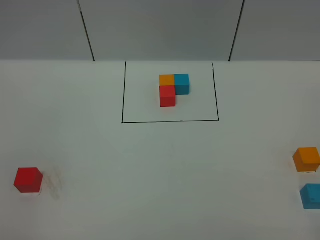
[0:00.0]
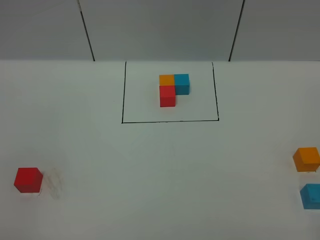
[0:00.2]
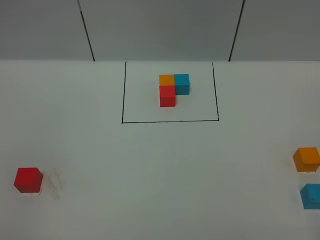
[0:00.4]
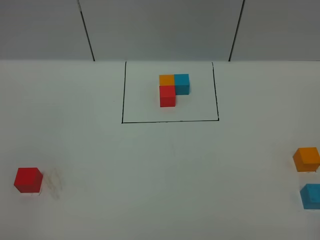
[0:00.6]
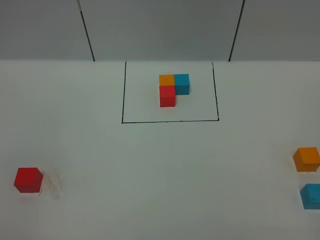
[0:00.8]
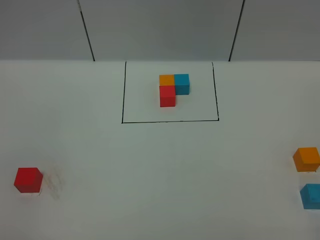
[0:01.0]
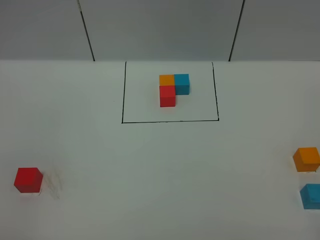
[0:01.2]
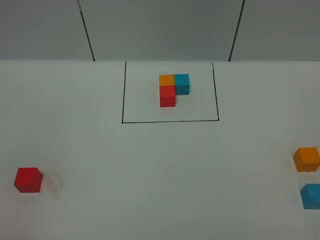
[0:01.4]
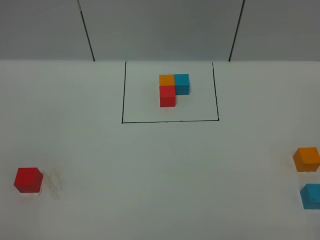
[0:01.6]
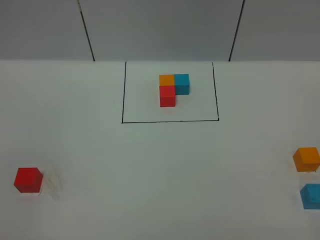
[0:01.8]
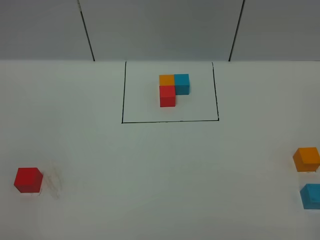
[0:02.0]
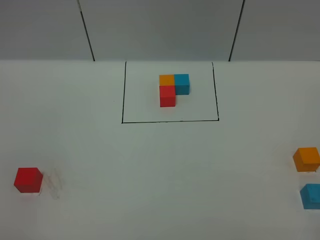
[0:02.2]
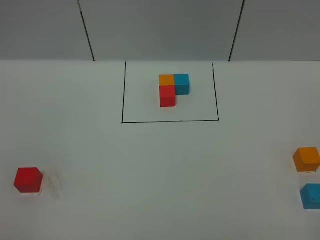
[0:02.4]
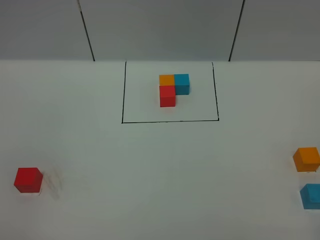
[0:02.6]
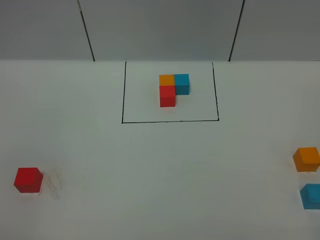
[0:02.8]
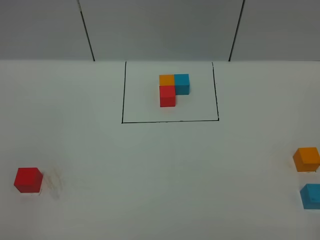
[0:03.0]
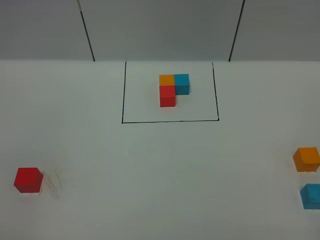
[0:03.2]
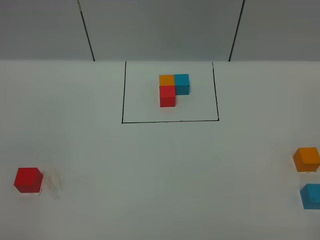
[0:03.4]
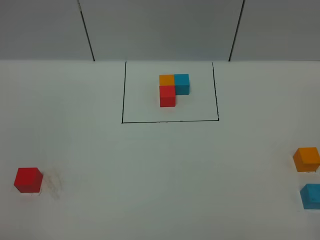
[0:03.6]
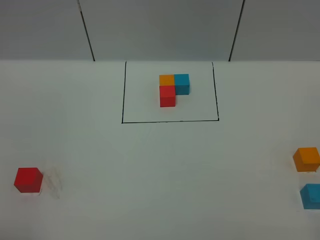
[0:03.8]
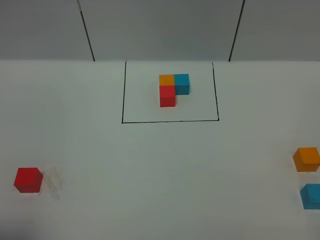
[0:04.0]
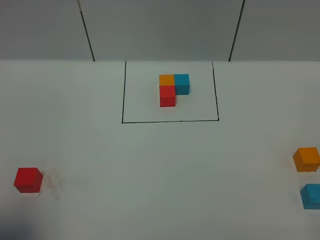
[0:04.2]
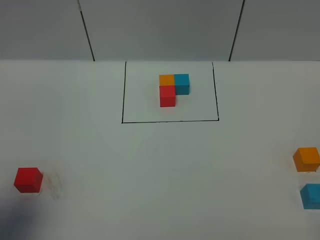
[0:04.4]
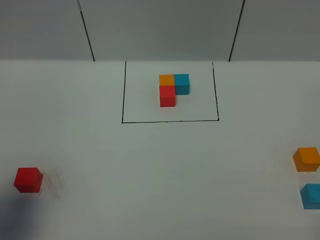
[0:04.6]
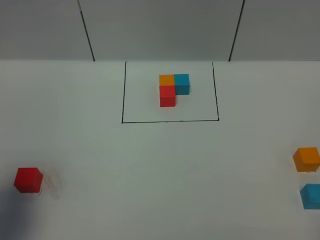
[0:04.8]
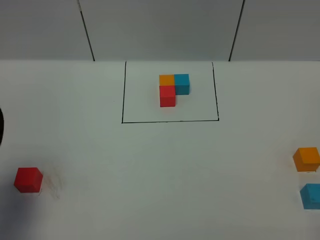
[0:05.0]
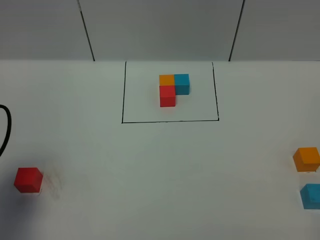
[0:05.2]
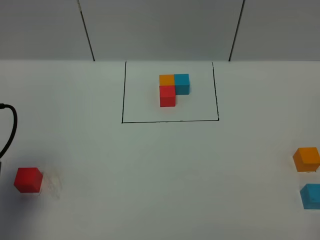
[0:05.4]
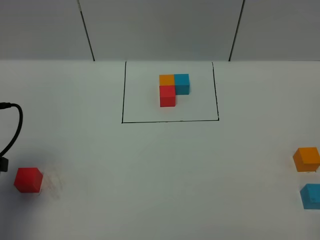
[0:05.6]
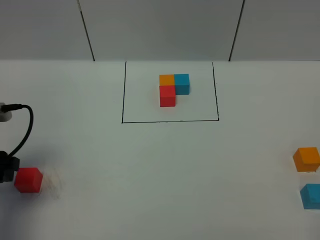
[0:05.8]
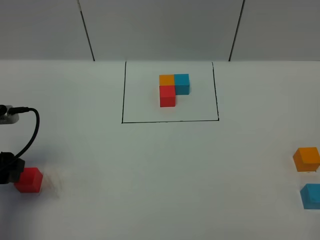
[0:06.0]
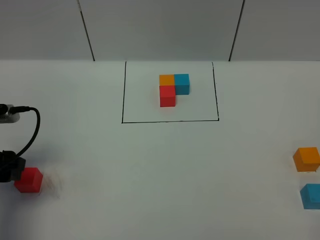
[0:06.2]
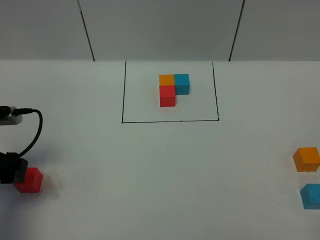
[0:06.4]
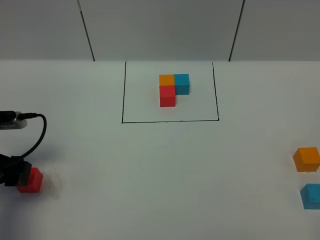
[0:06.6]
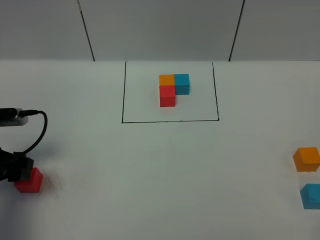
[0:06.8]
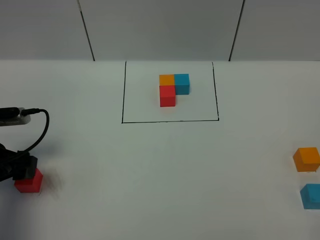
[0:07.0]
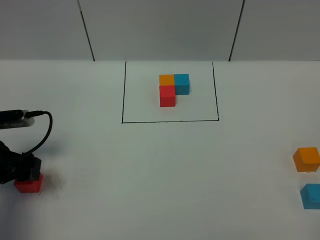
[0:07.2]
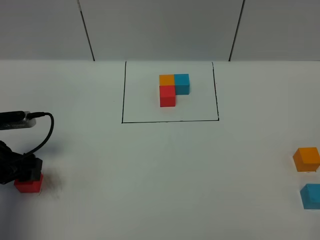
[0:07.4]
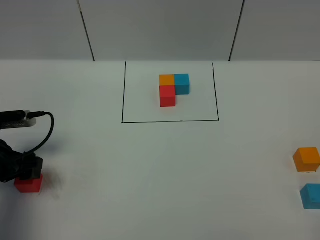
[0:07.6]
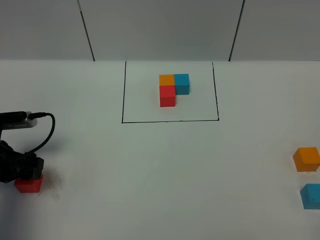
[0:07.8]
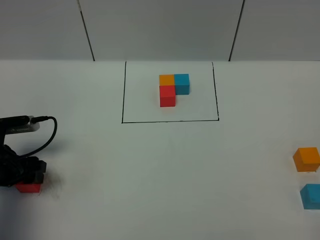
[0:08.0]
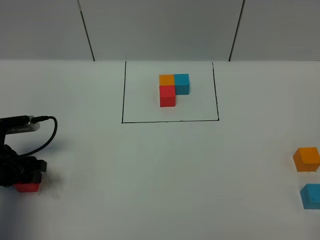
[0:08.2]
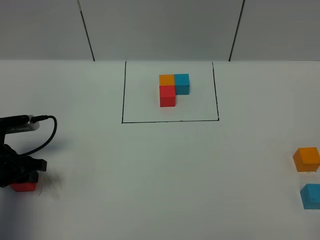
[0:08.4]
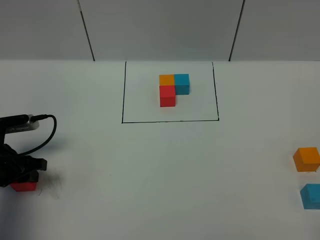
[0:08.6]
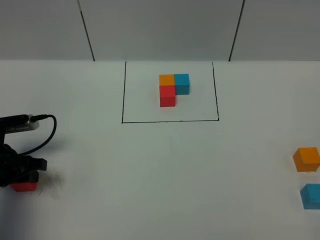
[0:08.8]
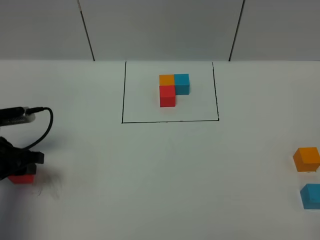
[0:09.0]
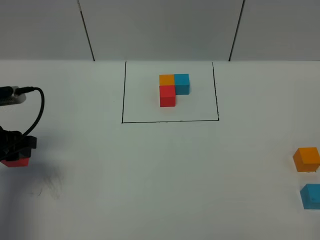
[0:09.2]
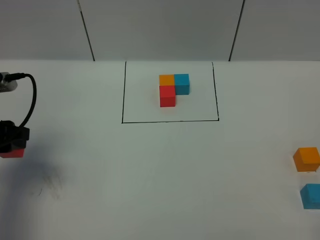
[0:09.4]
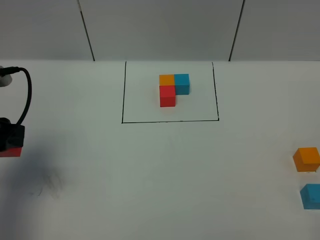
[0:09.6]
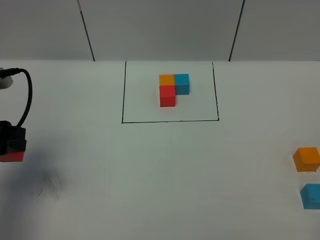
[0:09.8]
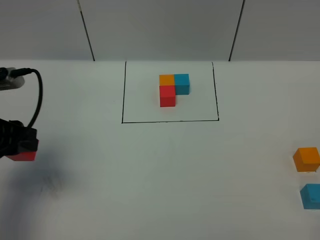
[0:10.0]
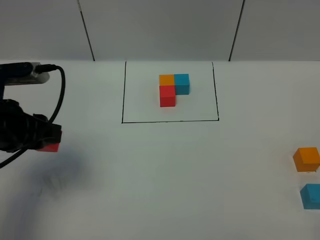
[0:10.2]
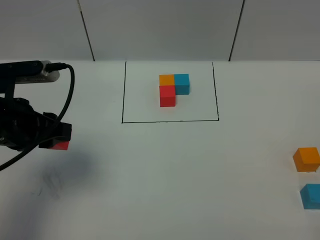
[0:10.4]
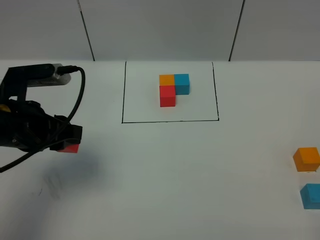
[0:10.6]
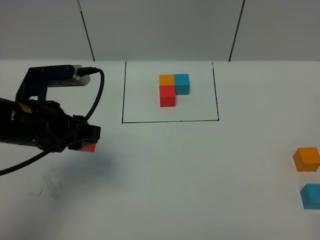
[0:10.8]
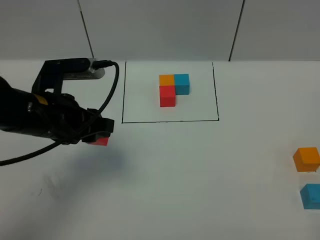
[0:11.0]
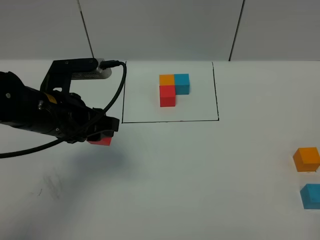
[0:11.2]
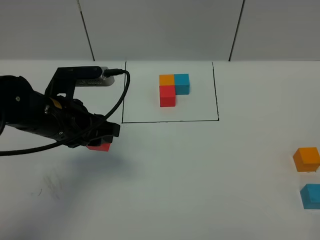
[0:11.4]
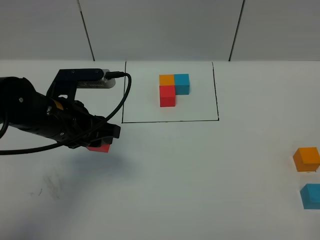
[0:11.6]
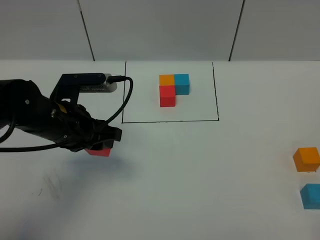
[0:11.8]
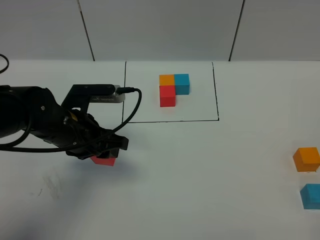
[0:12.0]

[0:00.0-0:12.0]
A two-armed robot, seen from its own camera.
Task of the whole recording: According to the building block template in front, assemble the scattered blocks together.
0:00.0 to 0:01.6: The two grippers keep their place.
0:03.0 to 0:04.4: The left gripper shifts some 15 cm forward.
0:04.4 to 0:06.0: The left gripper goes about 15 cm forward and downward.
0:06.0 to 0:07.6: The left gripper heads downward, covering approximately 5 cm.
0:07.6 to 0:09.0: The left gripper closes up.
0:09.0 to 0:10.4: The left gripper heads upward and to the right, covering approximately 15 cm.
0:10.4 to 0:12.0: The left gripper goes about 10 cm to the right and downward.

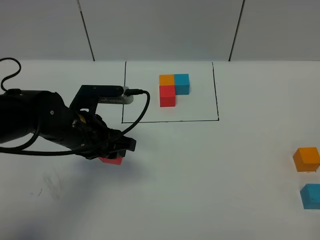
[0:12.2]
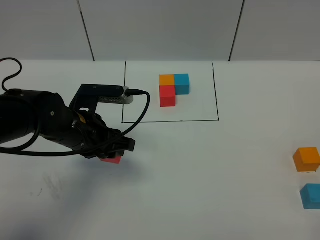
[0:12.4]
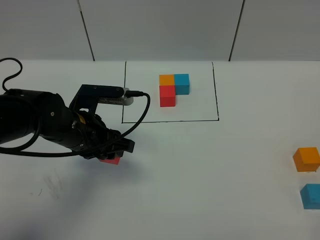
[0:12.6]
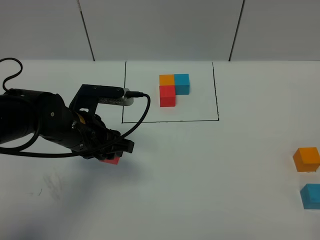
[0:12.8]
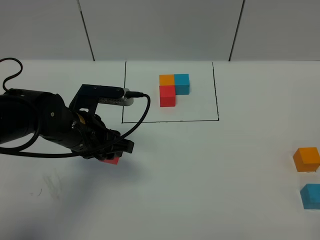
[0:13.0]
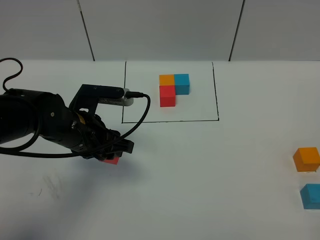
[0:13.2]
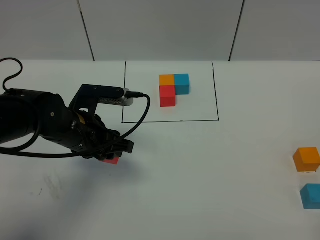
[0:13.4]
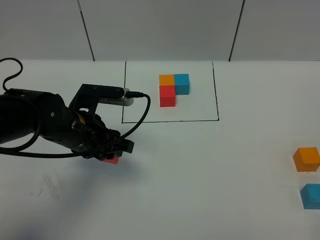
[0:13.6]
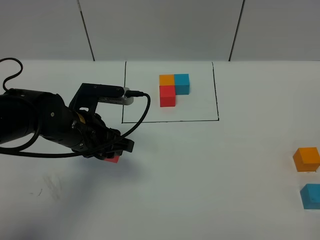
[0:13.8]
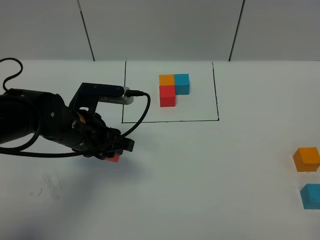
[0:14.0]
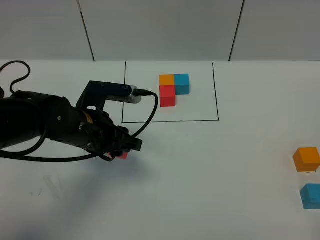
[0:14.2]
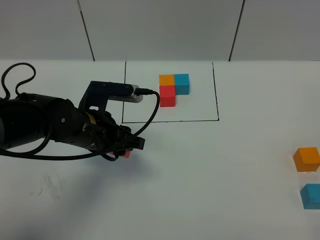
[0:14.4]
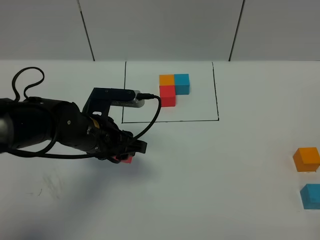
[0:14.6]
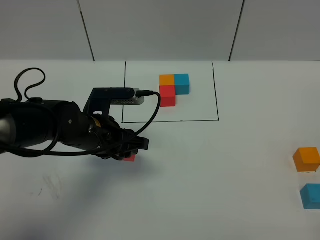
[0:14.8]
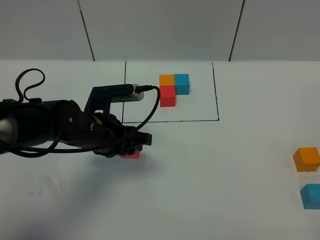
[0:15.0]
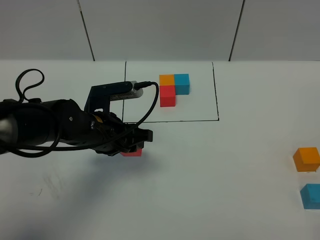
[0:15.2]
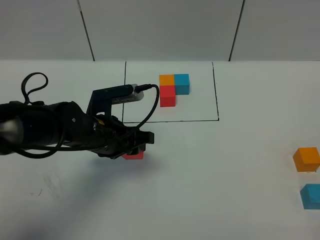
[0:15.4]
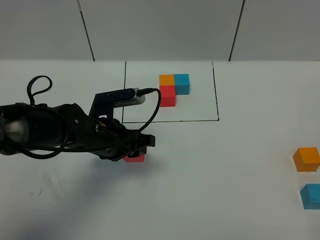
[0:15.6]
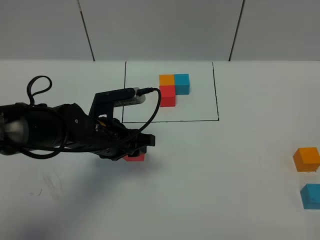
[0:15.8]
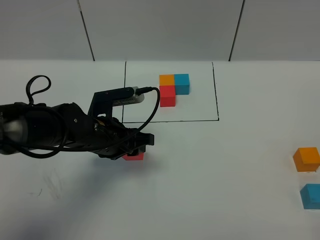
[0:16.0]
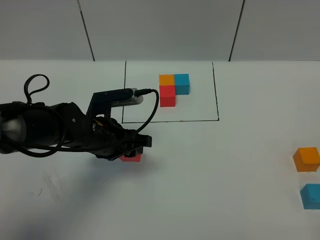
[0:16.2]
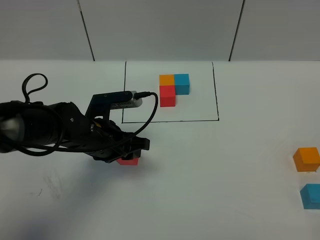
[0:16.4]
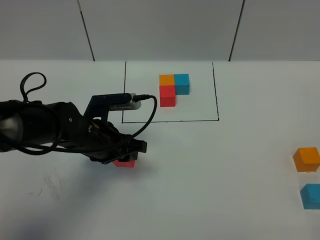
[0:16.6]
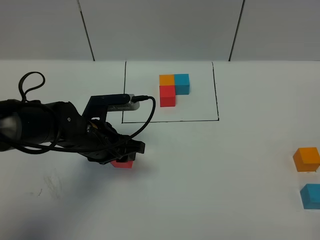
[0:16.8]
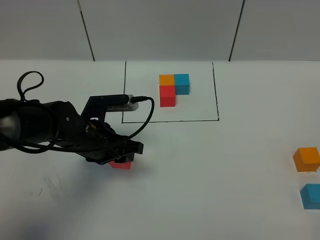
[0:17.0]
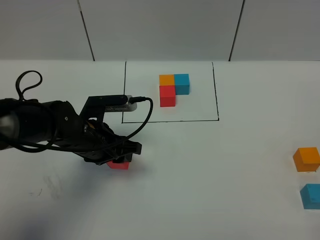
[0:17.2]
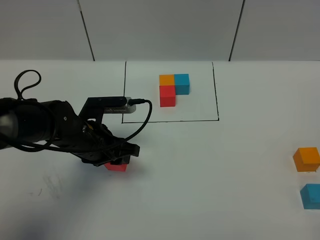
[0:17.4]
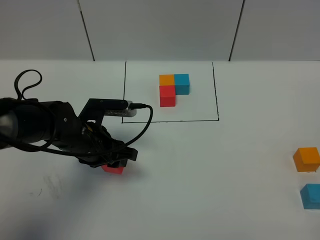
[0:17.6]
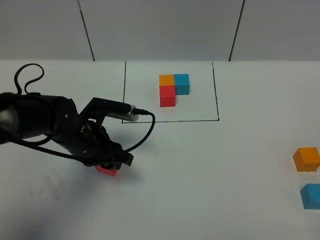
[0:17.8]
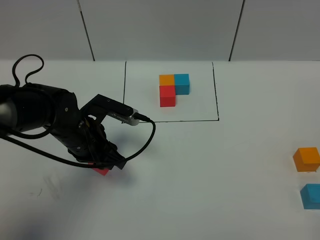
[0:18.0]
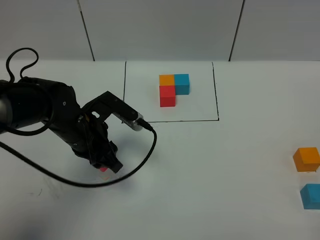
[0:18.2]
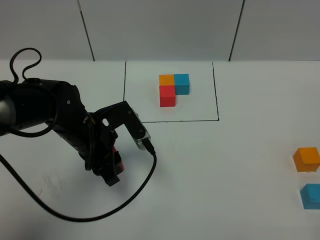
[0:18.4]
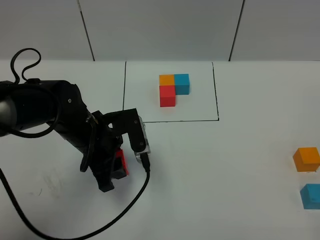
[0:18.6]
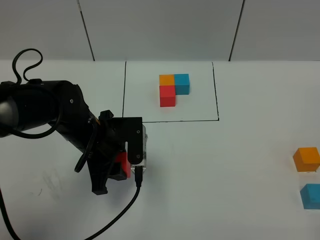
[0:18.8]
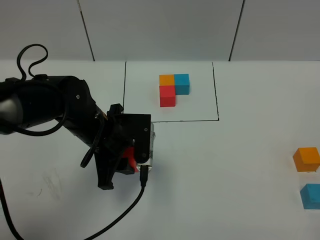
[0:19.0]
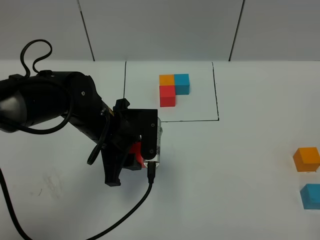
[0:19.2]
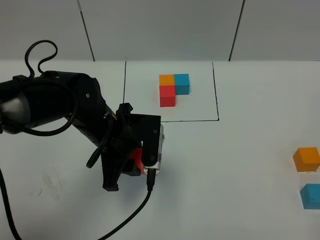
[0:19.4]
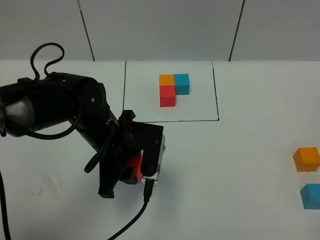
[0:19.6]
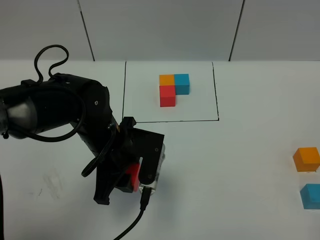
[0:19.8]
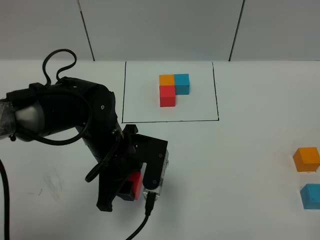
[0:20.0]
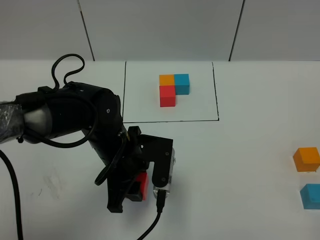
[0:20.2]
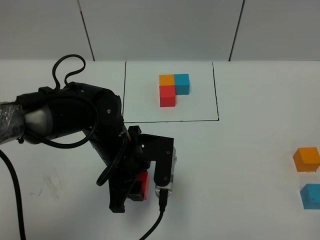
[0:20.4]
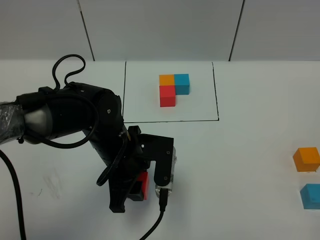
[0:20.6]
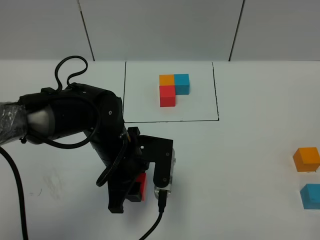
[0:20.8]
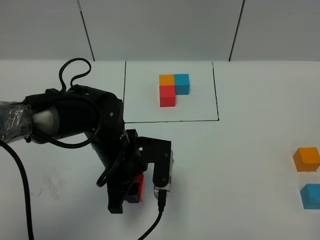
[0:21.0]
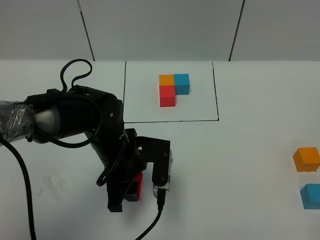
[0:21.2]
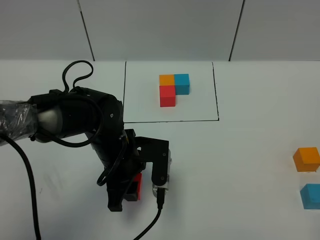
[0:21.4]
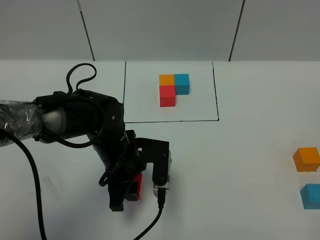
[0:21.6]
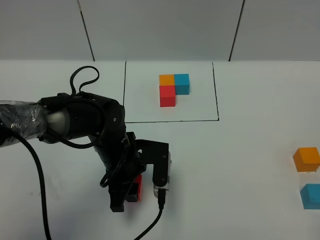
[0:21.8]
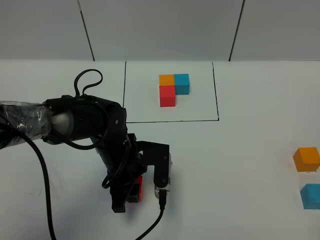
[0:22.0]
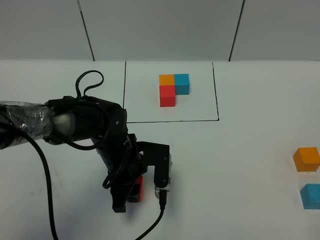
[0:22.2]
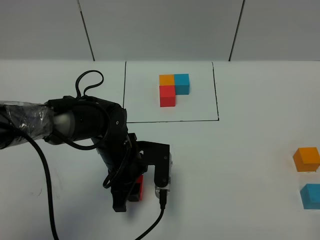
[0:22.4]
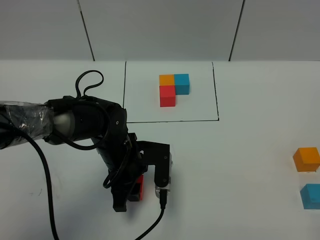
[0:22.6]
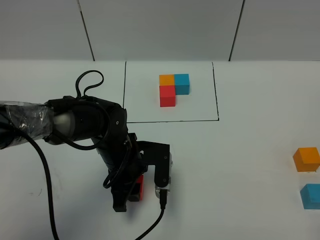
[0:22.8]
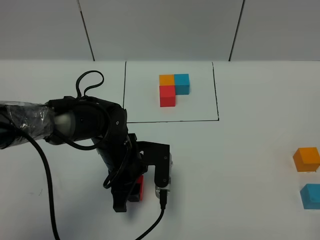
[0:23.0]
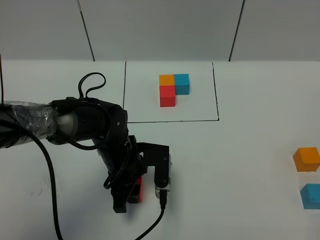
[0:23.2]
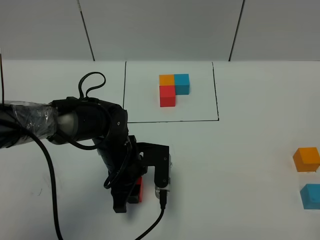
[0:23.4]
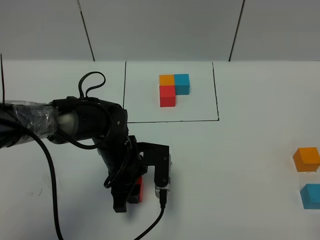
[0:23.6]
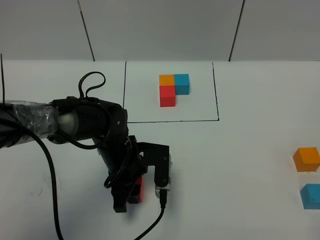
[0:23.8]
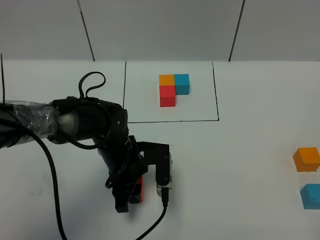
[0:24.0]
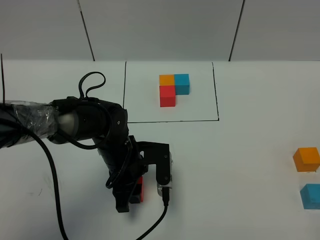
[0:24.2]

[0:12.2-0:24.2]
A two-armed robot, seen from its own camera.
Task of the whole recording: According to the building block template in front, assemble the scattered blocks together.
0:12.2 to 0:13.8: Both grippers stay about where they are.
0:13.8 to 0:16.6: The grippers move only a little.
0:18.2 to 0:19.8: The left gripper goes approximately 5 cm to the right.
0:19.8 to 0:21.2: The grippers make only small movements.
0:21.2 to 0:22.6: The grippers make only small movements.
0:22.6 to 0:24.2: Both grippers stay put.
